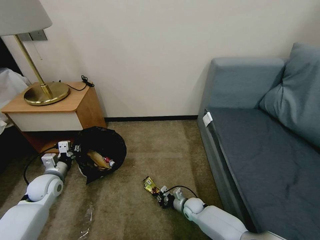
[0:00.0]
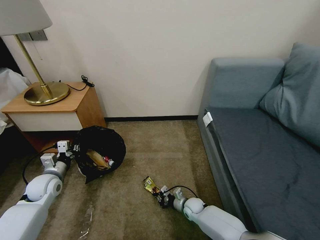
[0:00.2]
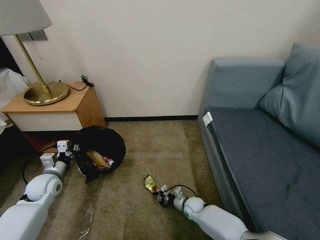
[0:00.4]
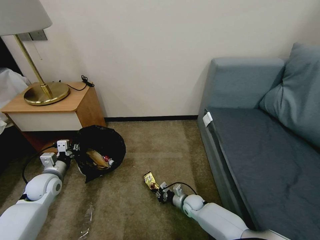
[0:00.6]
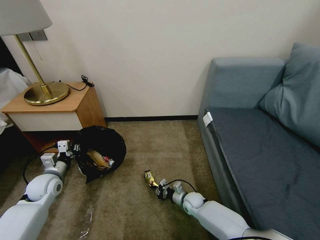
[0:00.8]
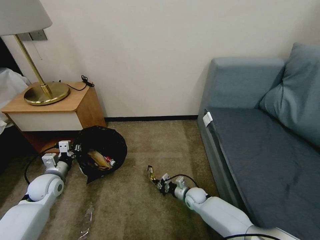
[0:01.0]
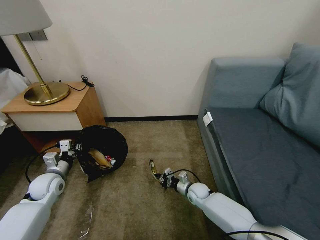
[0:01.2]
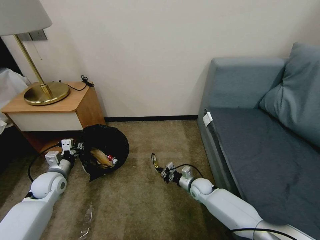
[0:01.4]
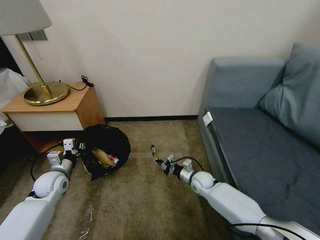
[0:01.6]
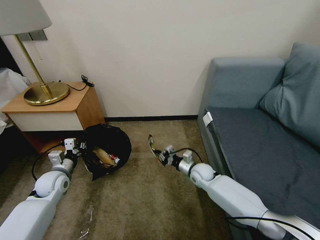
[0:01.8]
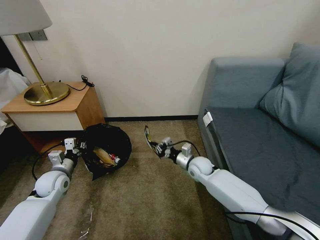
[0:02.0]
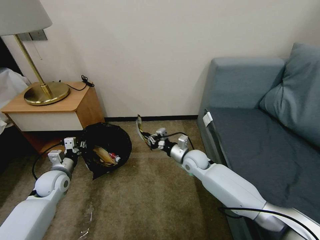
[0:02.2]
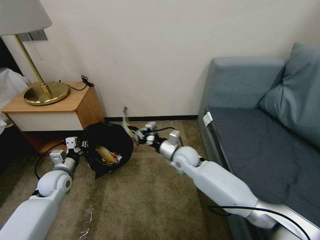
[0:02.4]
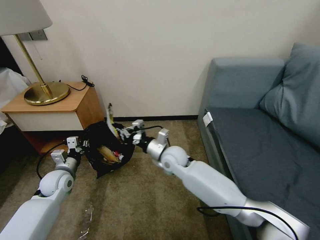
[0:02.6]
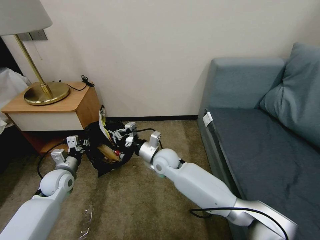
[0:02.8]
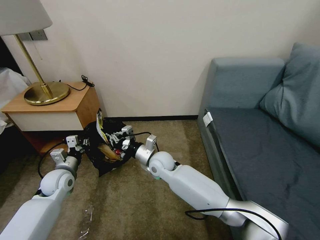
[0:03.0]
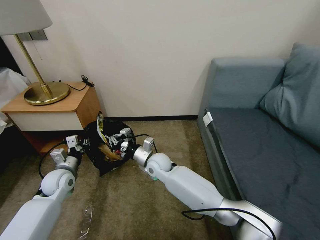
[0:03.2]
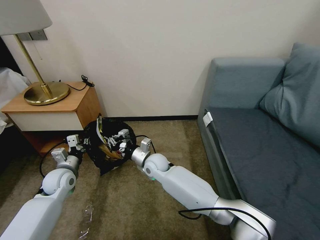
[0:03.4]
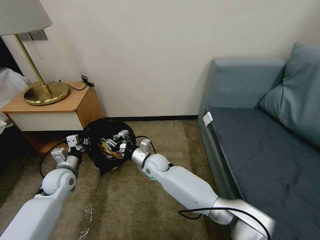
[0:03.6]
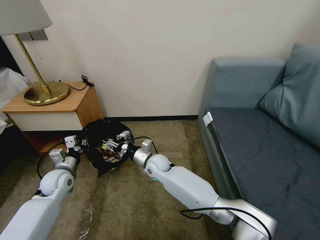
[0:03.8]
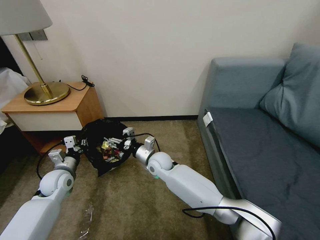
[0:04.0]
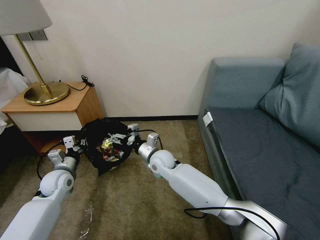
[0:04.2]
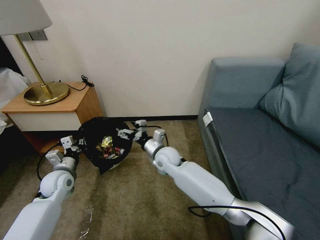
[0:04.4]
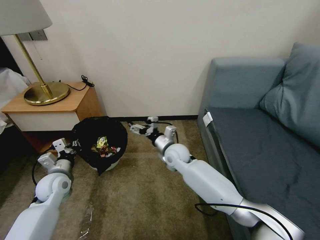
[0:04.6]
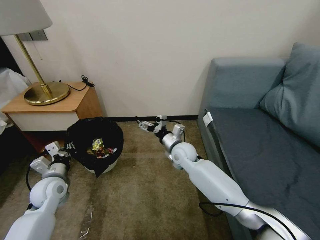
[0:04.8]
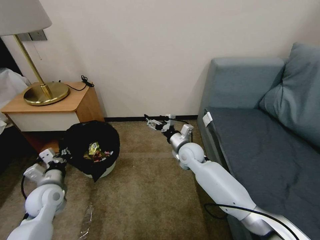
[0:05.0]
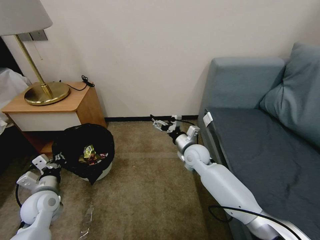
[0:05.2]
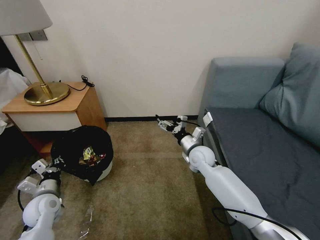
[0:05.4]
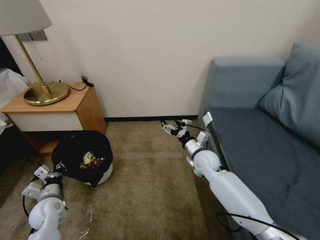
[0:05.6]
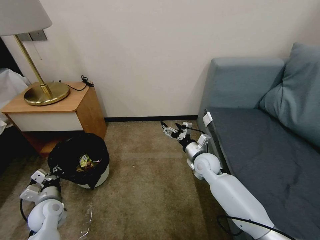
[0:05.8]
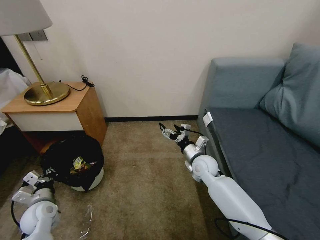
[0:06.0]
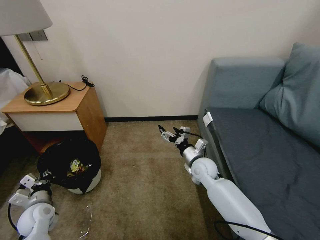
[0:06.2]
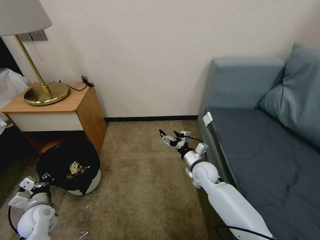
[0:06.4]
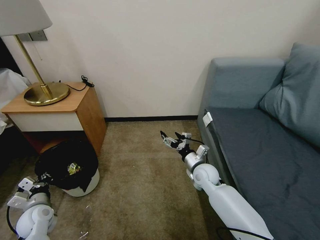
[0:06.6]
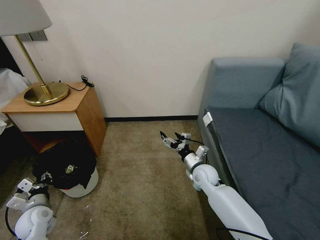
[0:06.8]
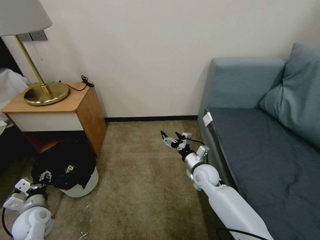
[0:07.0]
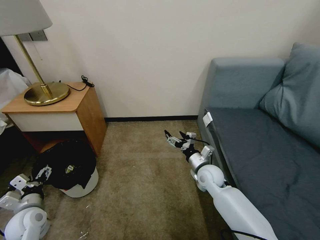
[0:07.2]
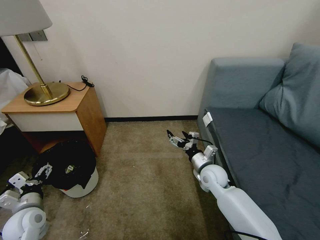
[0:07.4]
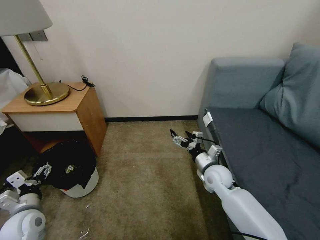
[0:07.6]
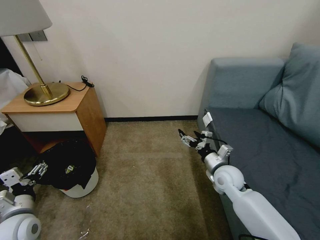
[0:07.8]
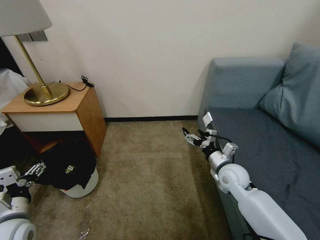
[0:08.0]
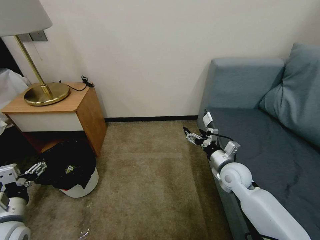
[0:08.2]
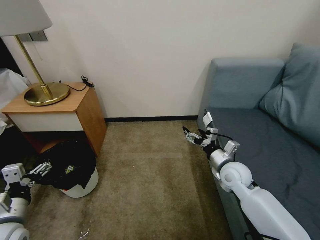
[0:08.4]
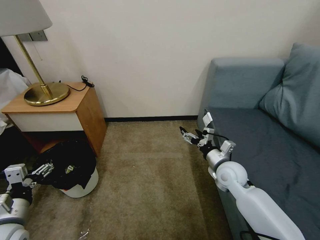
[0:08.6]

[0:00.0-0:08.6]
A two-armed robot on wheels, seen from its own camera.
Task of the whole recording: Pick up the trash bin, then pick up the garbage on the floor and place it into the trash bin.
0:00.0 to 0:01.4: The right gripper travels upward and forward by approximately 10 cm.
0:01.4 to 0:02.8: The right gripper is displaced upward and to the left by roughly 25 cm.
0:02.8 to 0:04.4: The right gripper opens its fingers.
0:04.4 to 0:05.8: The right gripper moves to the right, approximately 15 cm, while the left gripper travels backward and downward by about 10 cm.
0:05.8 to 0:07.2: The left gripper changes place by approximately 5 cm, and opens.
0:07.2 to 0:08.6: The right gripper shifts some 10 cm upward and to the right. Meanwhile the left gripper is displaced upward and backward by about 10 cm.

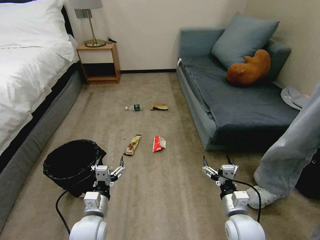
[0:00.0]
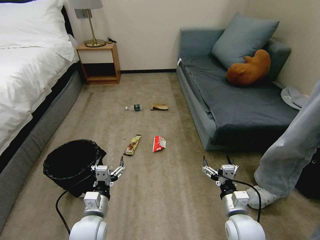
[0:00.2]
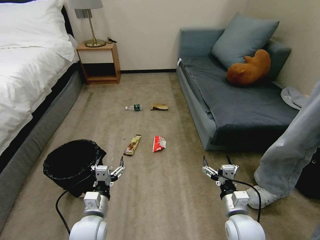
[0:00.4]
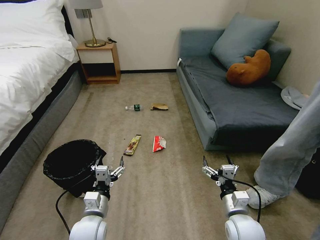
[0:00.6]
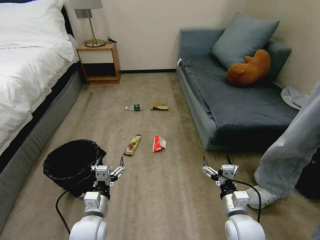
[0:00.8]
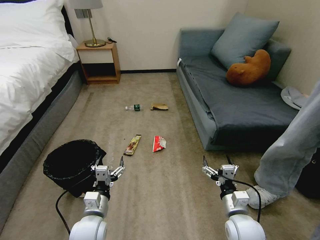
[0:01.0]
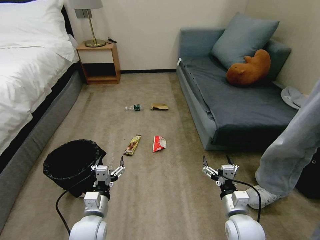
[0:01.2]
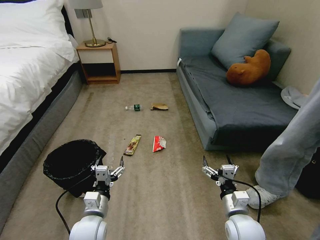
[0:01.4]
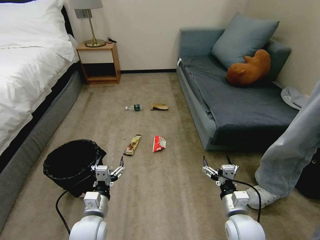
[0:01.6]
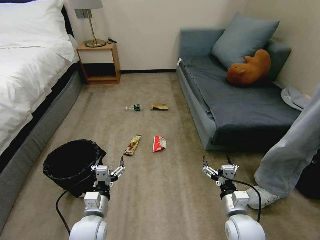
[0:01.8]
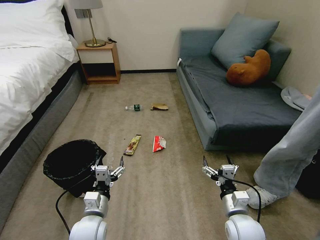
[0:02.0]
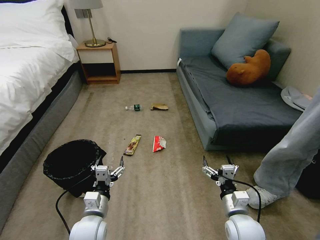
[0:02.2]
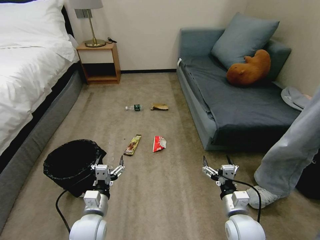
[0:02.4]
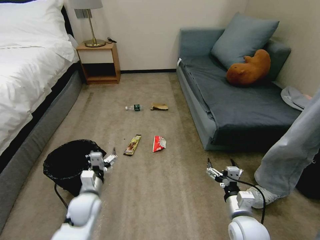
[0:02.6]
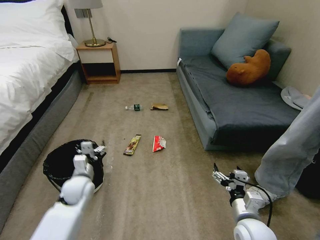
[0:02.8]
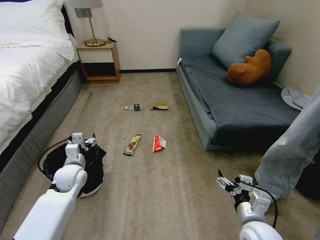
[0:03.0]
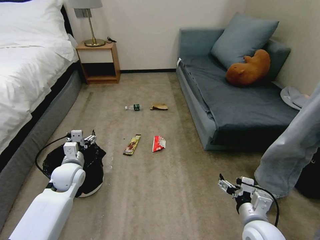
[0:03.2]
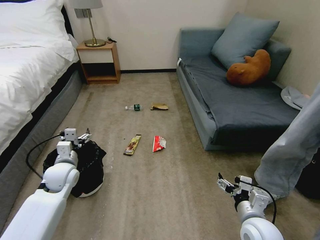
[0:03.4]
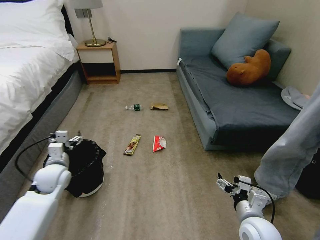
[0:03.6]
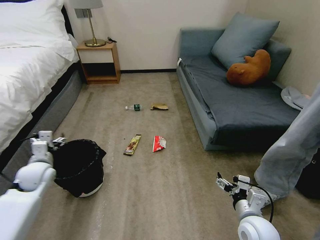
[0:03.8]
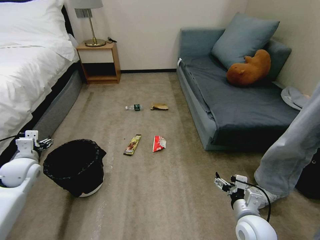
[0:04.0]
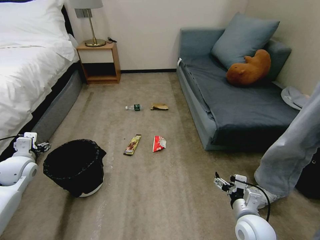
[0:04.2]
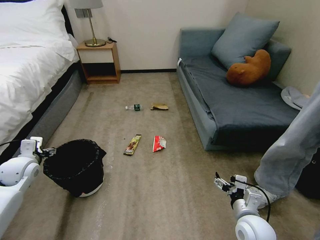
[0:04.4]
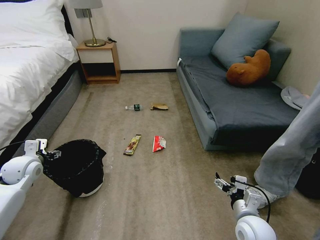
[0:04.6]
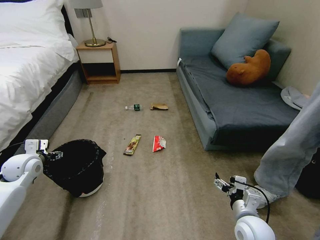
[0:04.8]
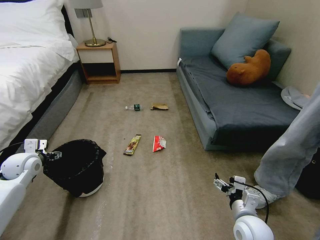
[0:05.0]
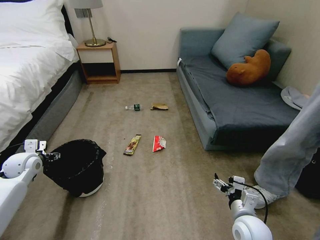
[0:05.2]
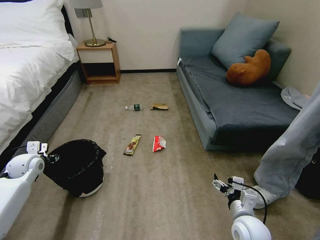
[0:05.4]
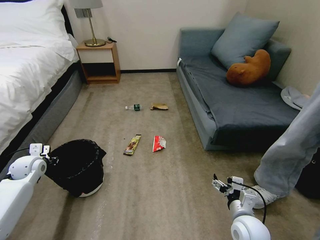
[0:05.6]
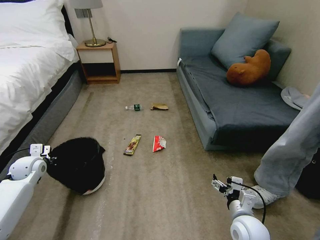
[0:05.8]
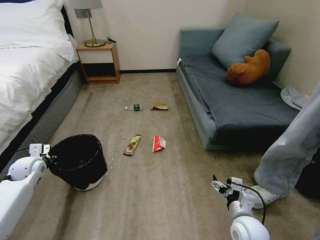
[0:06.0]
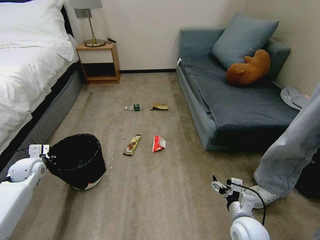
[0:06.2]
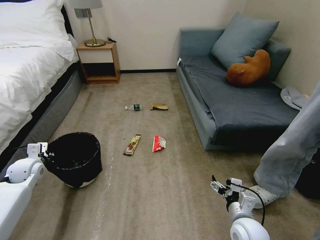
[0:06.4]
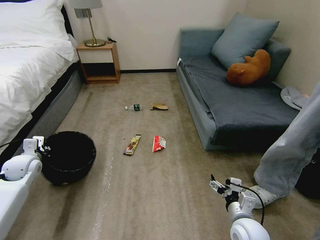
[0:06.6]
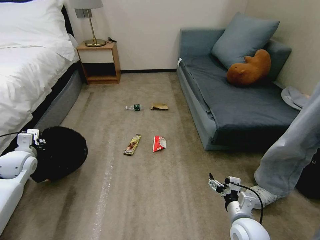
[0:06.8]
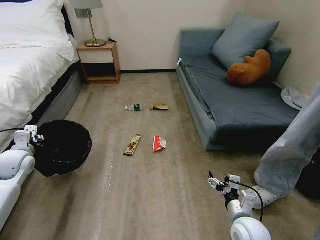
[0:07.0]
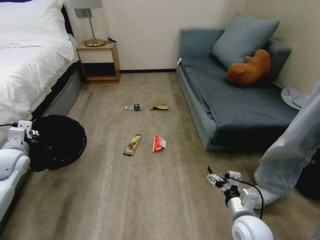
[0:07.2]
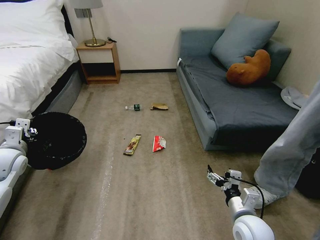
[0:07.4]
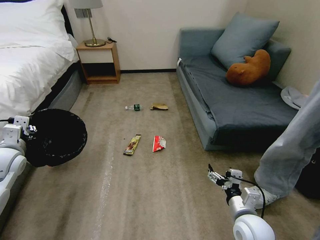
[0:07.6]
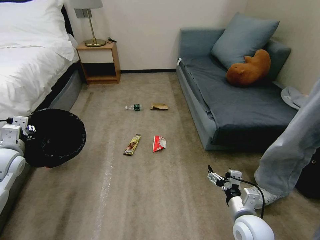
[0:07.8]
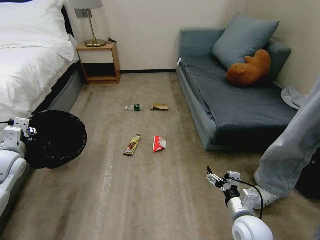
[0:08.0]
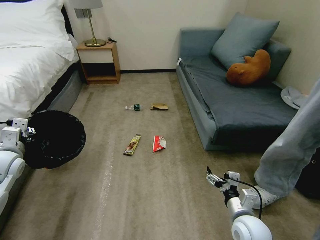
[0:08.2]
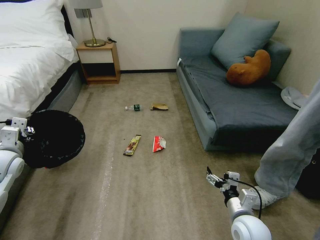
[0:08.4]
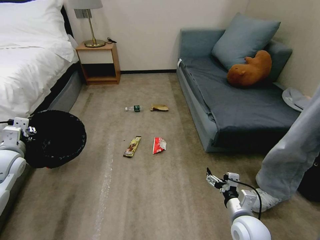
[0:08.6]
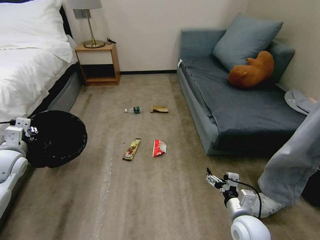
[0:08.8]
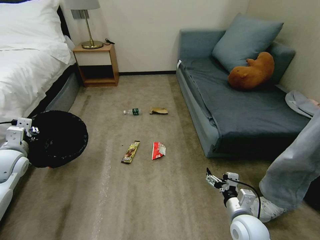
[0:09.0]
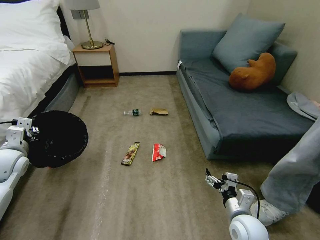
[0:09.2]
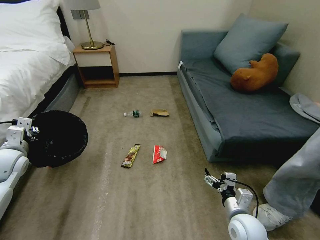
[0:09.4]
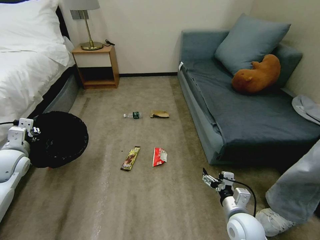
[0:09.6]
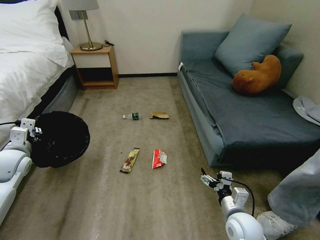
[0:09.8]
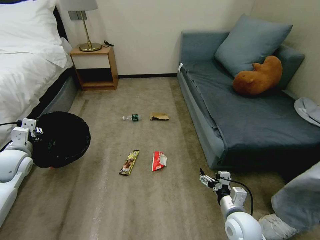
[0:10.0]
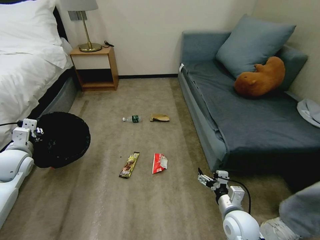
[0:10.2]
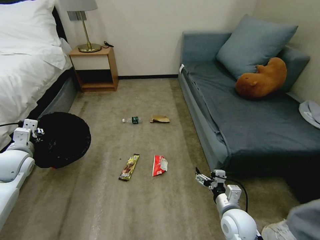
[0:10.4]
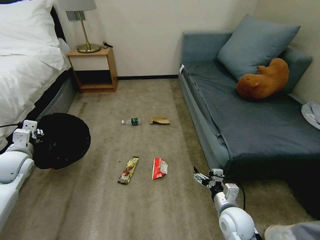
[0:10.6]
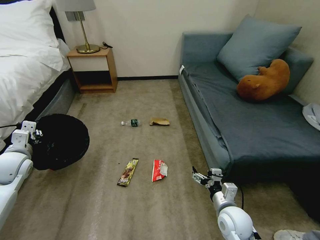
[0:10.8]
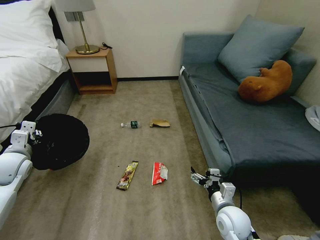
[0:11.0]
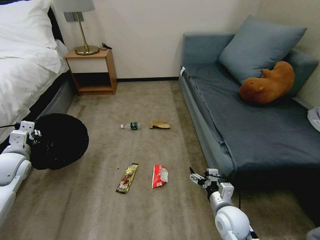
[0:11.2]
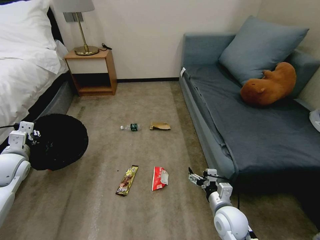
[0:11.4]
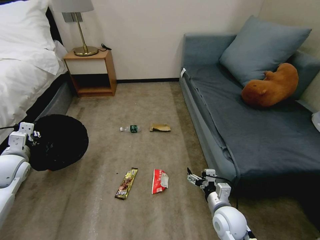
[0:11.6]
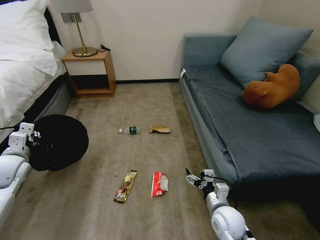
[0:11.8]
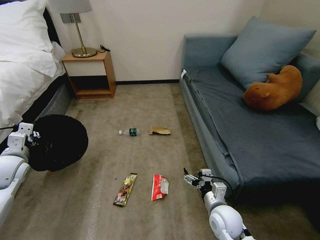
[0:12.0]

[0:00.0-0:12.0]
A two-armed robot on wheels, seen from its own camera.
Task of the whole recording: Pick up the trash bin, then pick up the garbage on the floor and place it into the trash bin.
0:01.6 to 0:03.0: The left gripper goes about 20 cm forward and to the left.
0:03.0 to 0:04.4: The left gripper moves to the left and upward, approximately 15 cm.
0:04.4 to 0:06.0: The left gripper moves roughly 5 cm, and closes up.
0:06.0 to 0:07.6: The left gripper goes roughly 10 cm upward.
0:07.6 to 0:09.0: The grippers make only small movements.

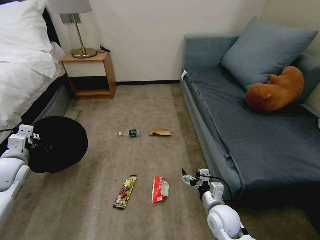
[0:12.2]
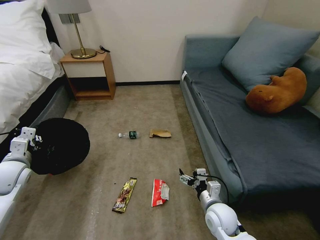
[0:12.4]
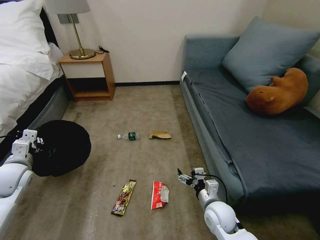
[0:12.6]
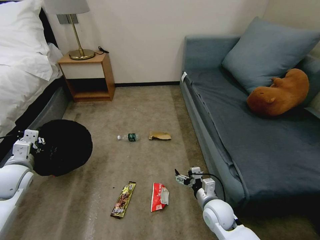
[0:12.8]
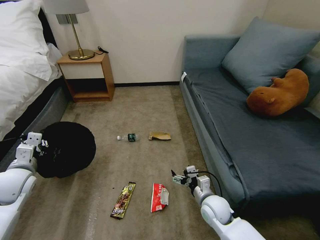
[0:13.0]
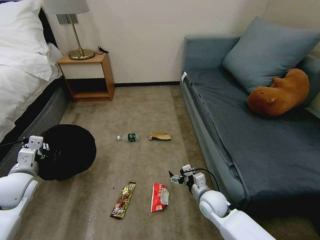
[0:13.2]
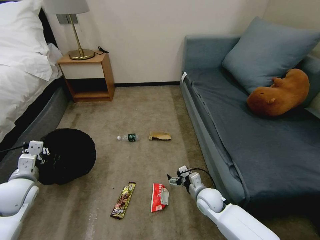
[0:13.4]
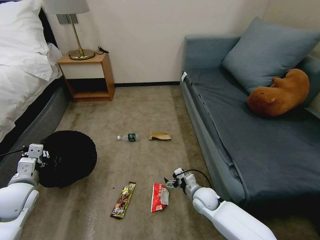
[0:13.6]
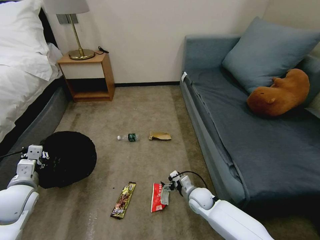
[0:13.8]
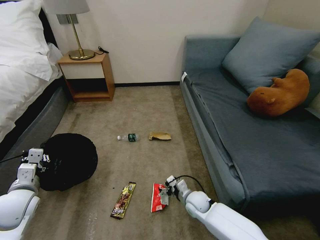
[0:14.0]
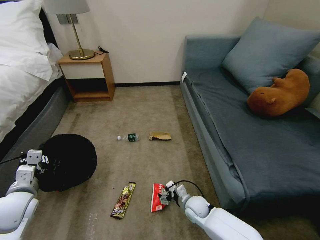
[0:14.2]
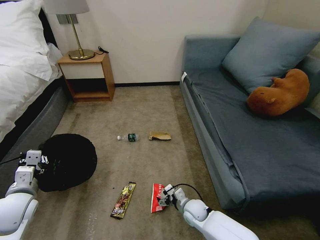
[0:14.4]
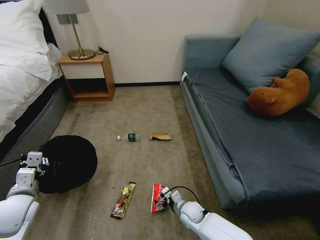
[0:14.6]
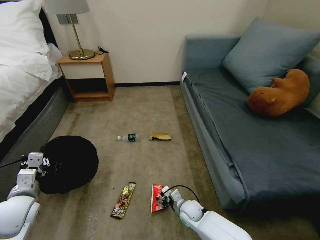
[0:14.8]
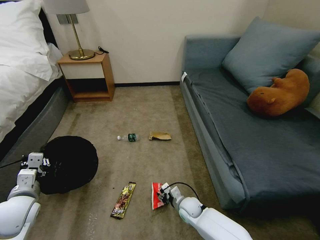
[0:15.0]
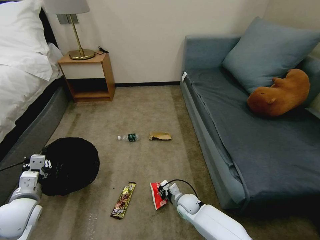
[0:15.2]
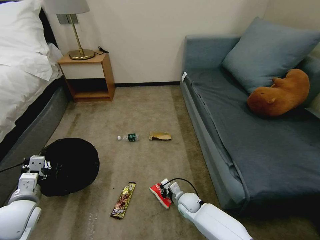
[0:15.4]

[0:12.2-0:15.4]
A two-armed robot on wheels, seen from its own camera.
Task of the whole recording: Pick up the trash bin, then pick up the garbage on the floor and place it into the trash bin.
0:12.2 to 0:13.8: The left gripper shifts approximately 5 cm backward; the right gripper is displaced forward and downward by roughly 10 cm.
0:13.8 to 0:15.4: The right gripper shifts some 5 cm downward, and closes its fingers.
